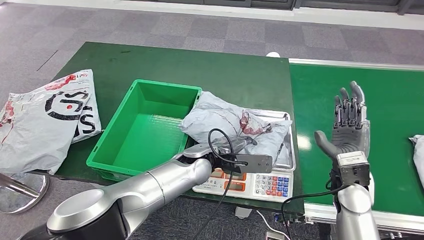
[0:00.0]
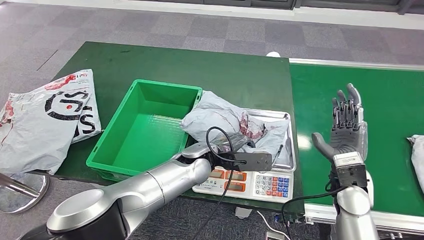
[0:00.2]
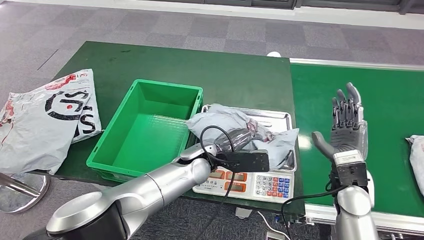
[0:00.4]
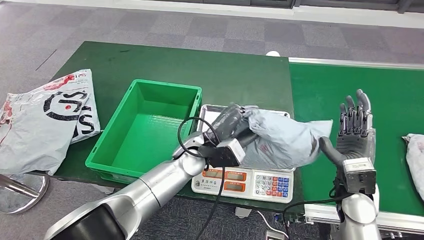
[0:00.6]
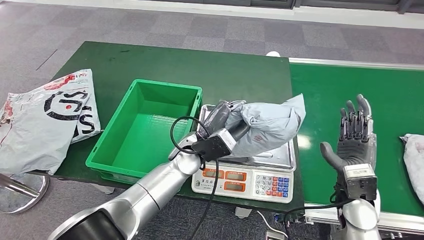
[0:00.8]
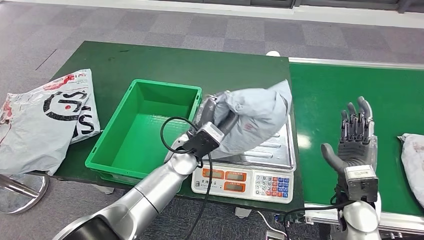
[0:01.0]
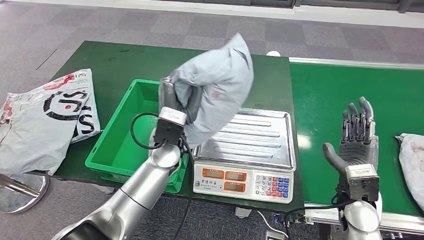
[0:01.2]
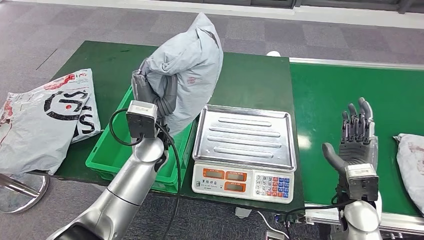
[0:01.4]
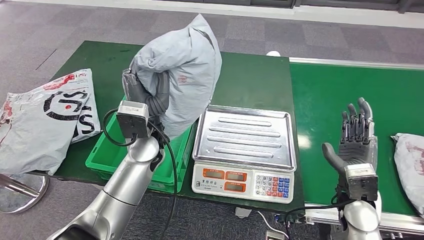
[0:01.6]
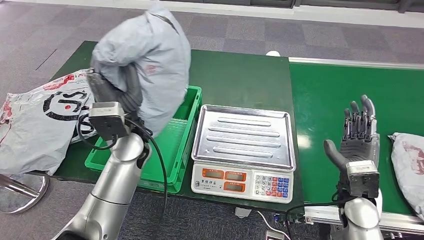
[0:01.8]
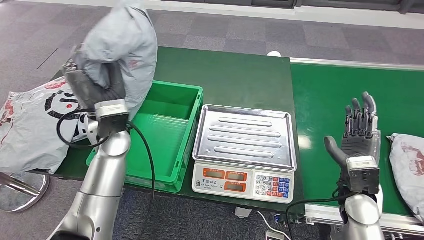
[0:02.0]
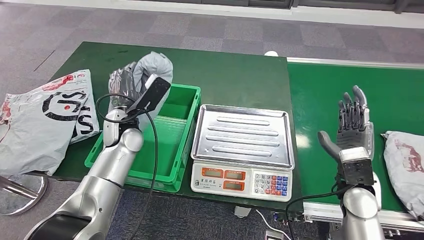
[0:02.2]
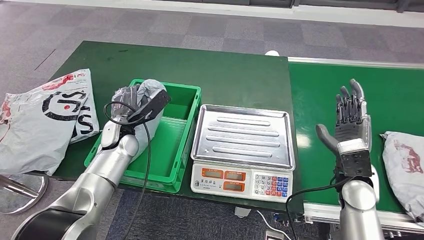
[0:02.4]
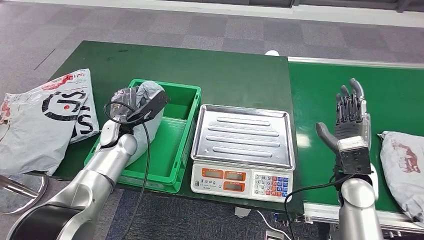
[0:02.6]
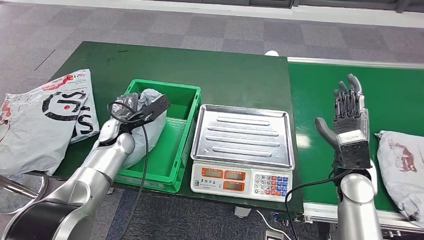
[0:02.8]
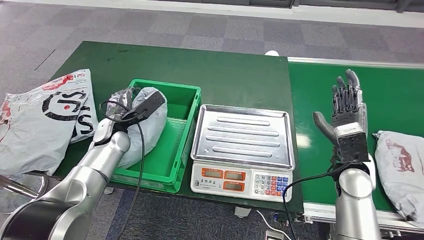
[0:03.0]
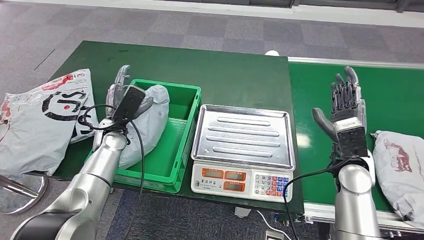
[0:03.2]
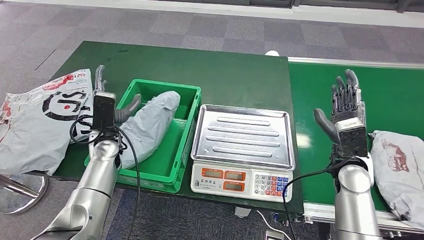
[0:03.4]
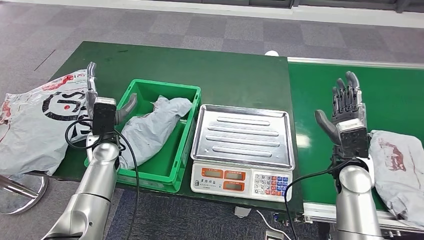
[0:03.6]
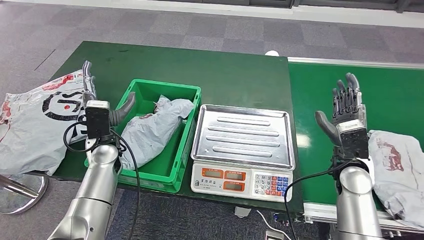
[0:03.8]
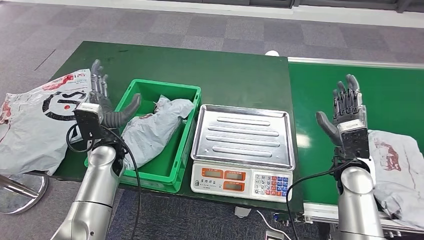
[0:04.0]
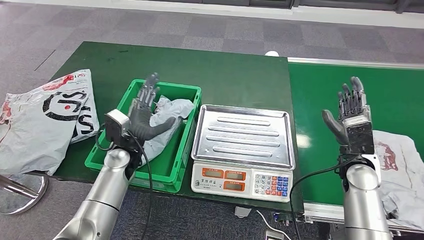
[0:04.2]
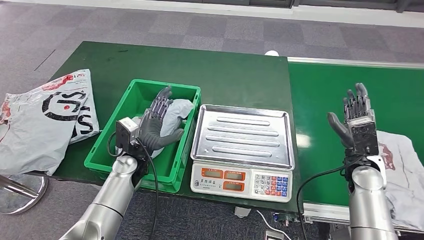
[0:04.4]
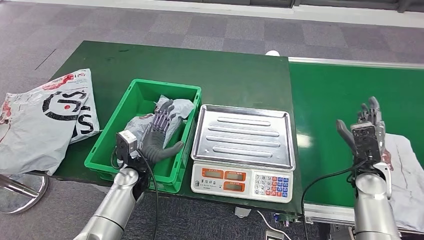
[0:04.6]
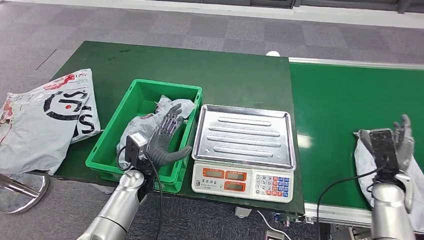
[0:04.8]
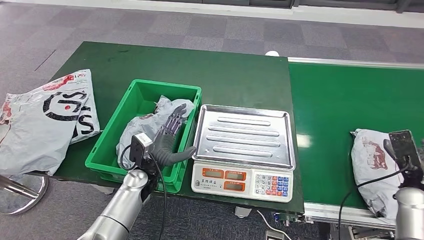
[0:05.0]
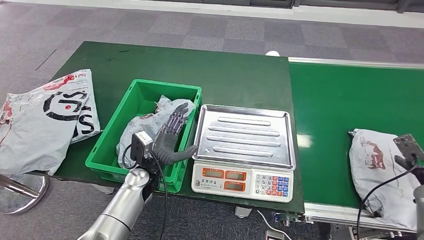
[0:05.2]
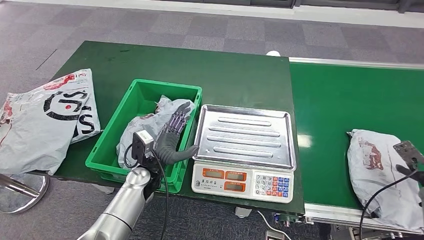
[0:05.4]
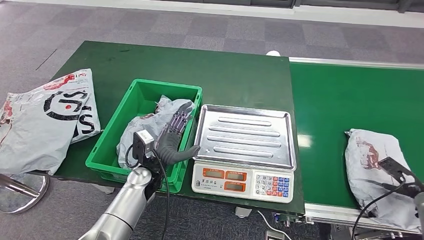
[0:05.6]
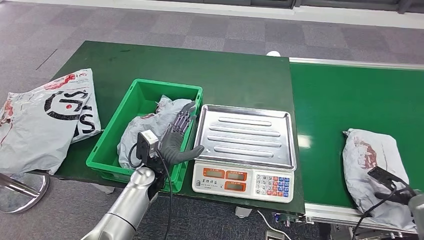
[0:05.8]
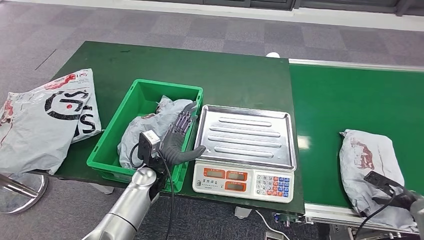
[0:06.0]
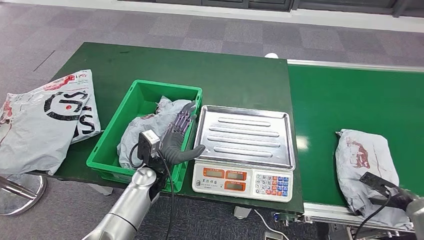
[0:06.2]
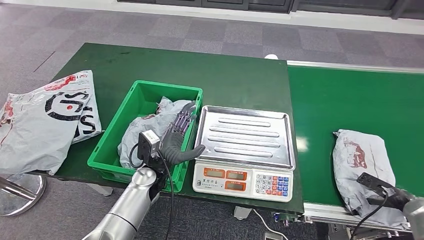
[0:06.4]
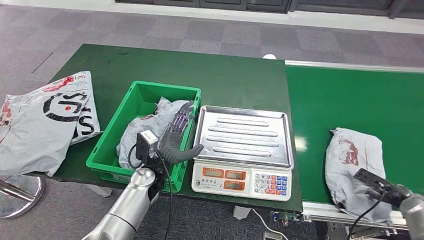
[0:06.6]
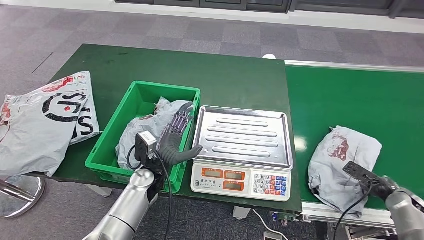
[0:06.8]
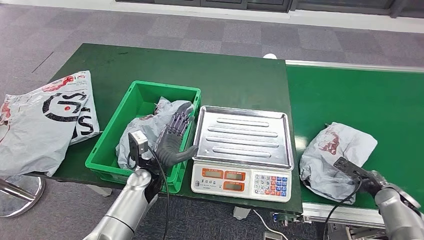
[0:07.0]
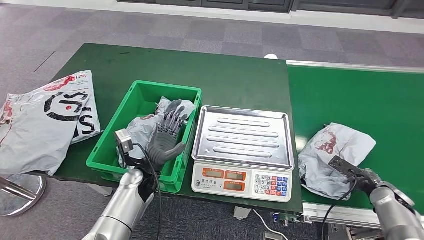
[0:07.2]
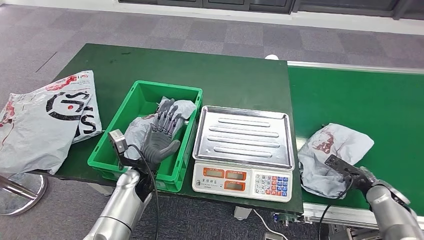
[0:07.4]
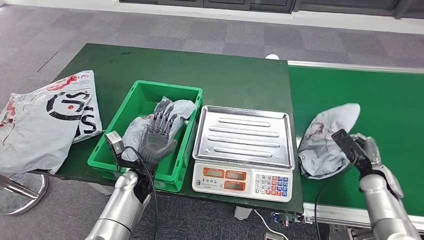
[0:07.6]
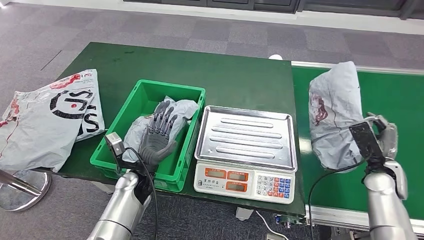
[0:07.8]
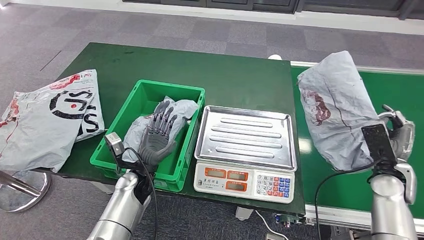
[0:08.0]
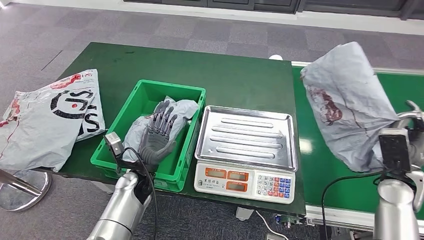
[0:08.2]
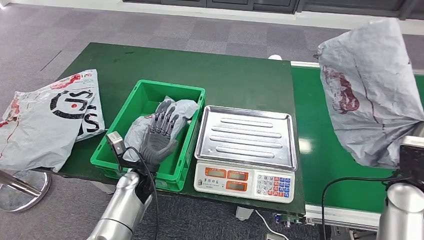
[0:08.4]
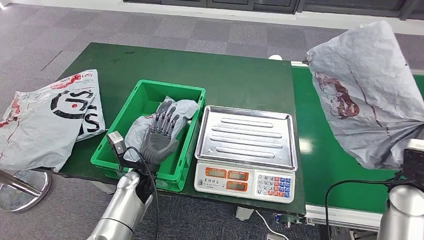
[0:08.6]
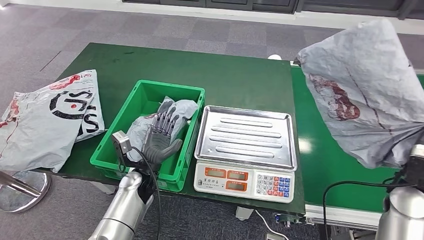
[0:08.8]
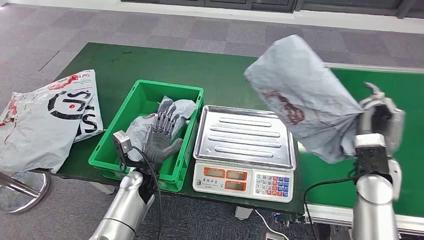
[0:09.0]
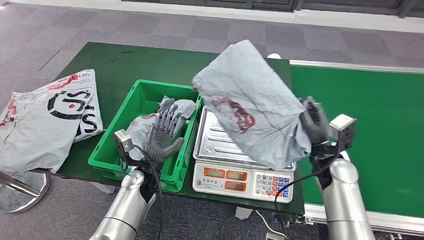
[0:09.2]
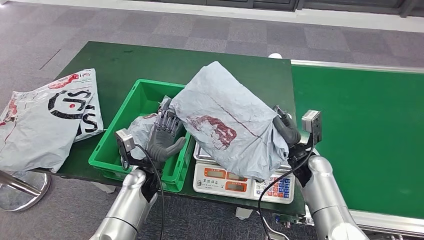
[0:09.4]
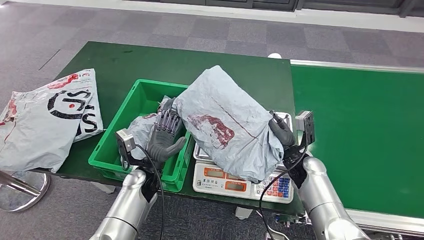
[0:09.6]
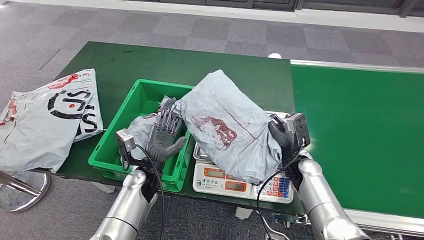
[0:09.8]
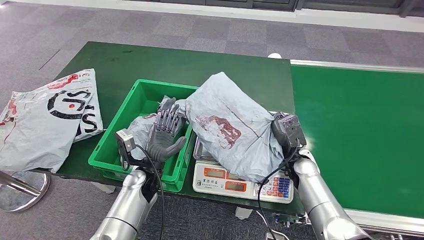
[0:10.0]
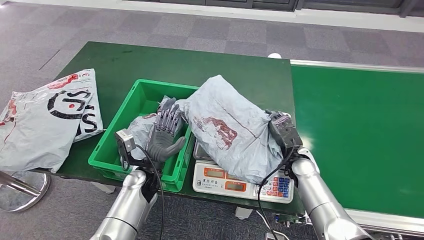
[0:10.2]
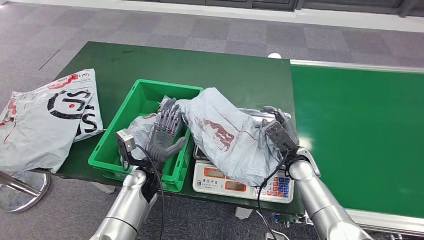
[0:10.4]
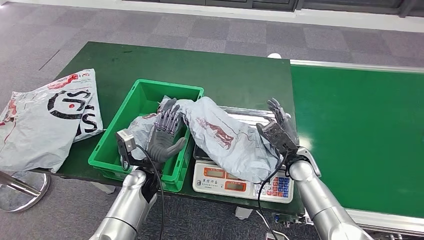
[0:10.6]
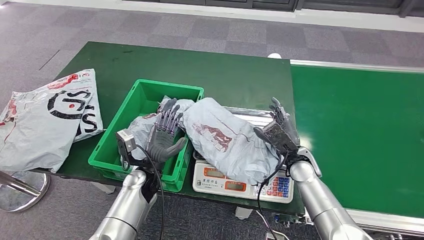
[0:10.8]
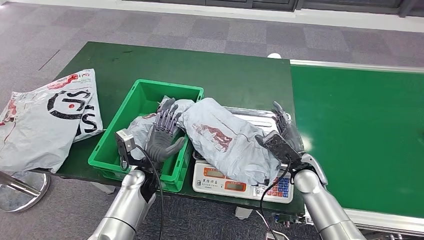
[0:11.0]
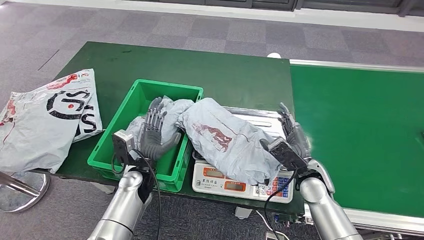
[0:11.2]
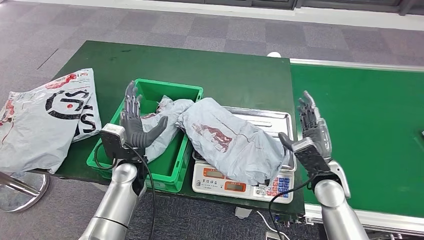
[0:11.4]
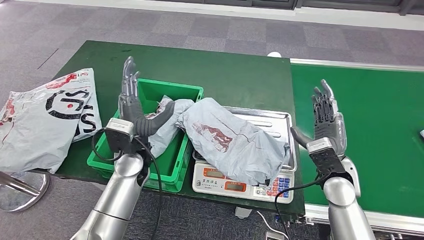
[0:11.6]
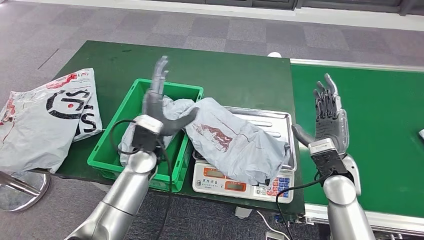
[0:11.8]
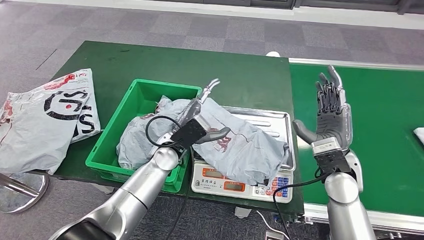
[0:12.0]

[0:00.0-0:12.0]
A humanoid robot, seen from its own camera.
Step, 0:01.0 to 0:03.8: Put the parcel inside the courier box.
Step, 0:04.0 to 0:08.2: Pick up the parcel from the conveyor belt.
Step, 0:08.4 to 0:11.8: Place the parcel onto the inbound machine.

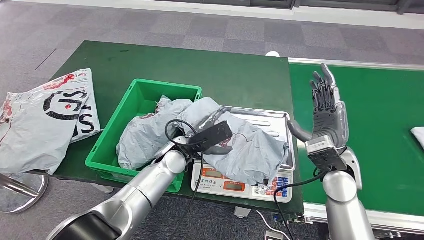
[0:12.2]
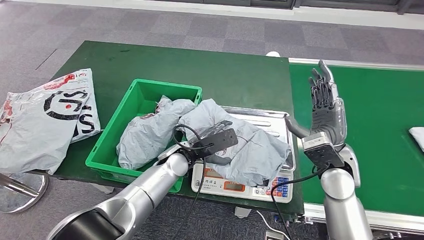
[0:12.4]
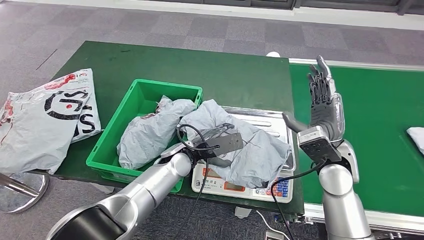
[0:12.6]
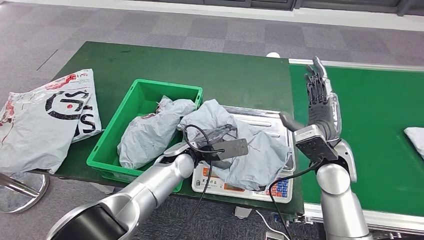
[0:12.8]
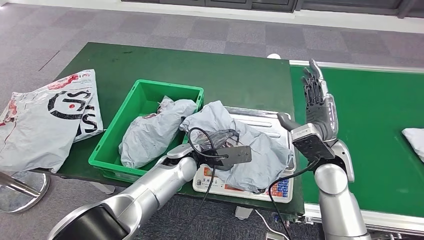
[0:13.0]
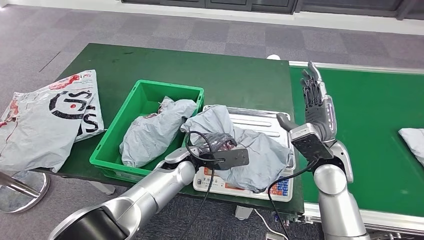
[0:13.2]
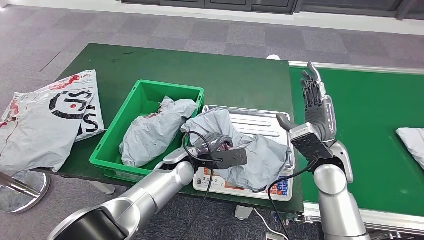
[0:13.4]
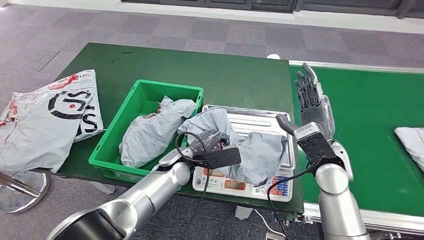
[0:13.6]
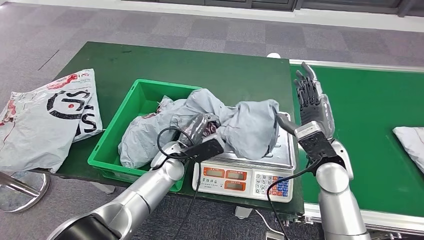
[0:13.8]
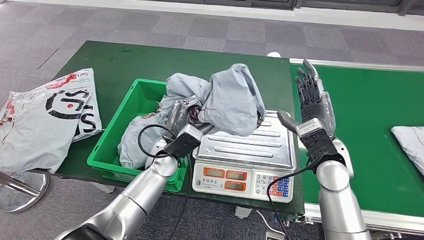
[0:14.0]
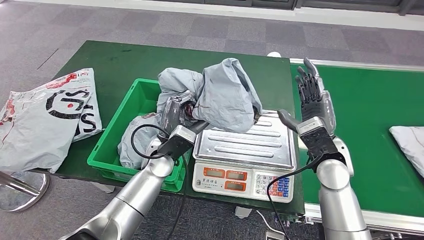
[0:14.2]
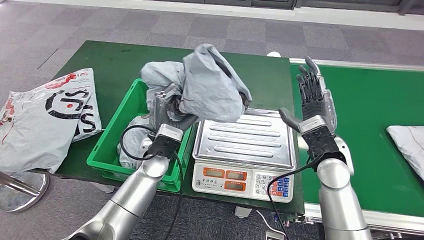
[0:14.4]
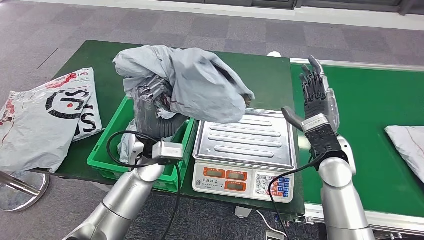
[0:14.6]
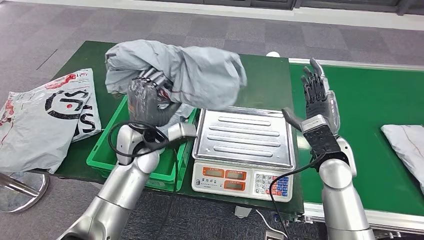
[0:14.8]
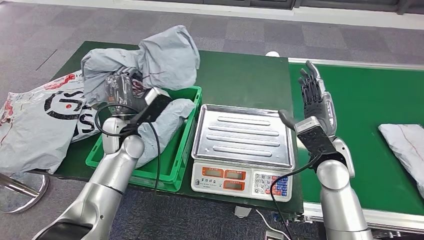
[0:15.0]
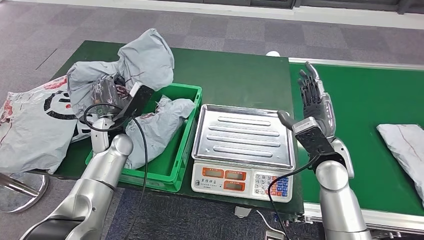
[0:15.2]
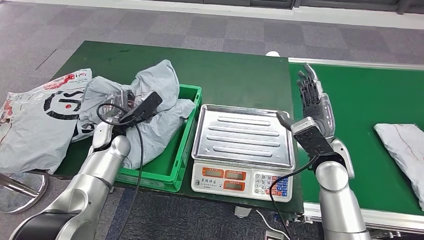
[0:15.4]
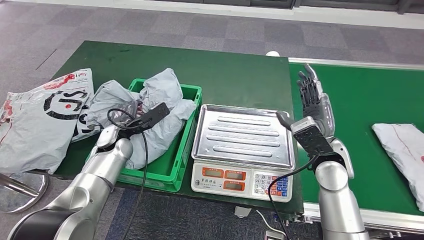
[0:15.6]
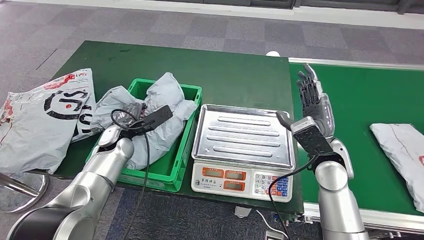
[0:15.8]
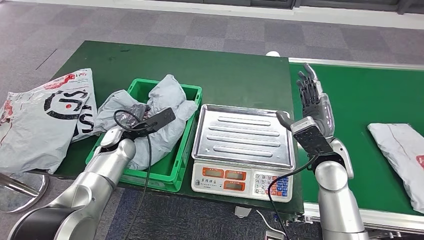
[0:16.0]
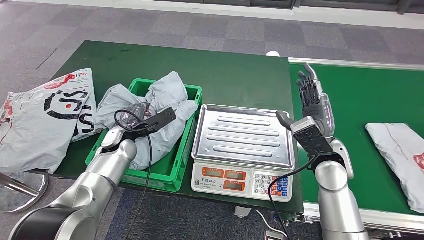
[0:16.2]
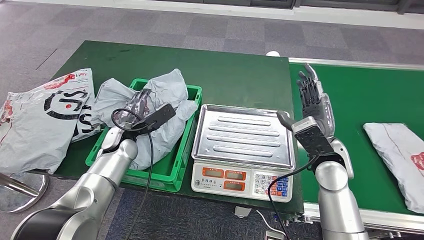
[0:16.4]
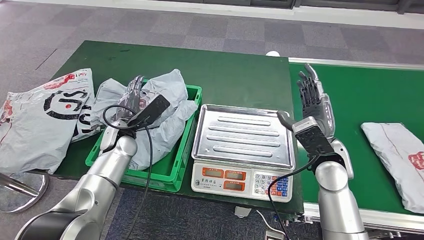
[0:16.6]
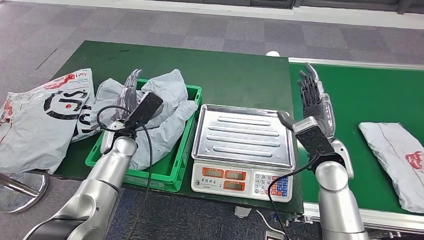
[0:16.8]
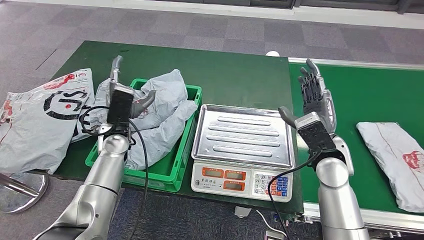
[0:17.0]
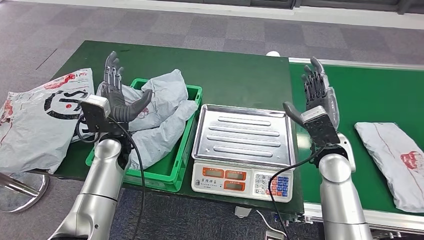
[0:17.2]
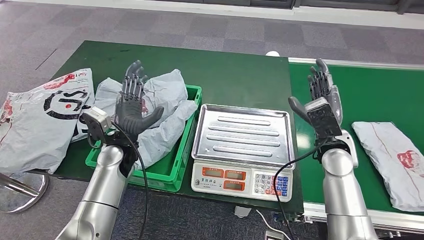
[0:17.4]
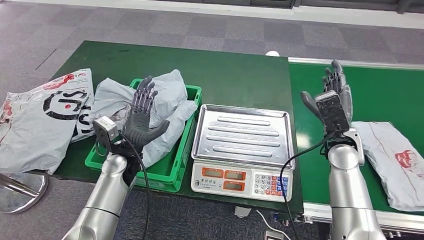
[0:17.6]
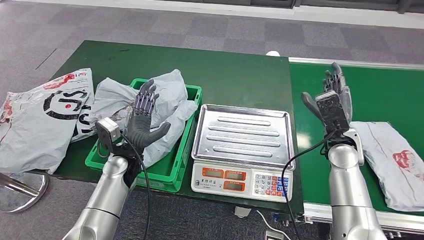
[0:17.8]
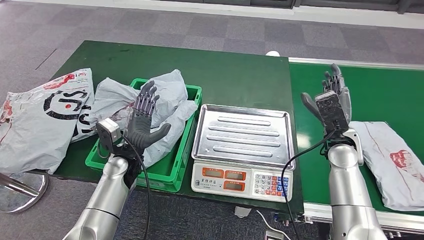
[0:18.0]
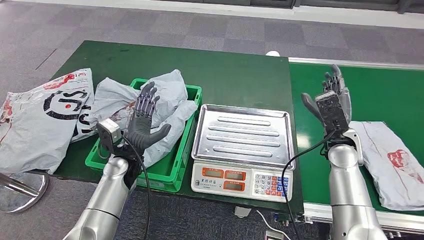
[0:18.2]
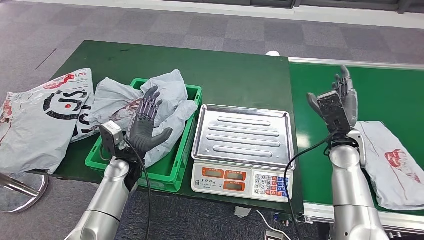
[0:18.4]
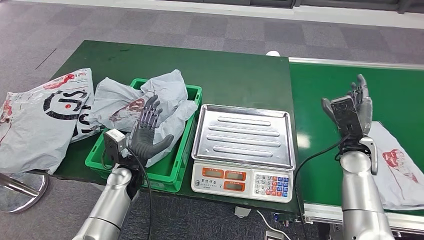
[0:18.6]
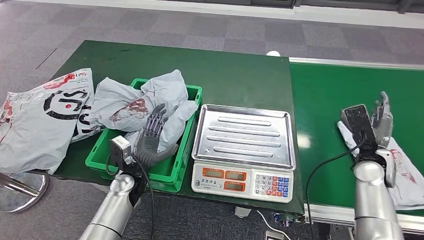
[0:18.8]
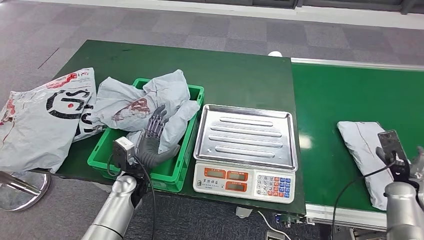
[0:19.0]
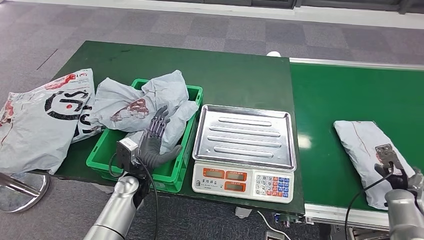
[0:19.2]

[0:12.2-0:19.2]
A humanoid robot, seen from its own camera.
Step, 0:12.2 to 0:14.0: Pick up the parcel from the inbound machine.
Step, 0:14.2 to 0:17.0: Place the parcel into the delivery box.
